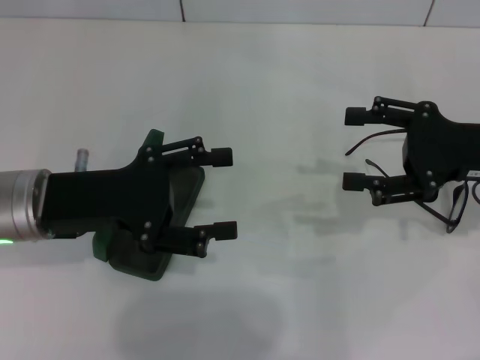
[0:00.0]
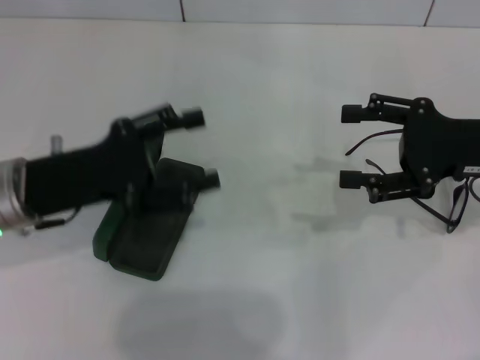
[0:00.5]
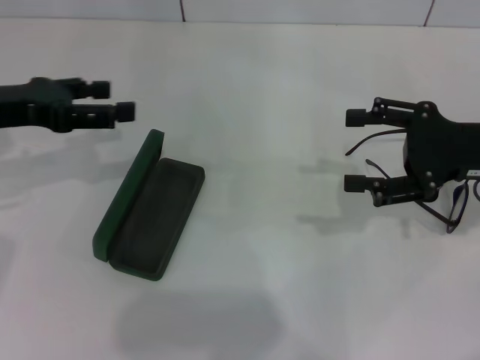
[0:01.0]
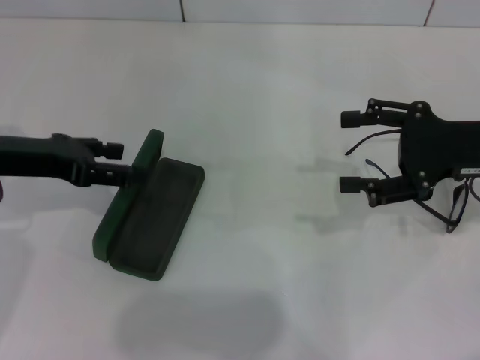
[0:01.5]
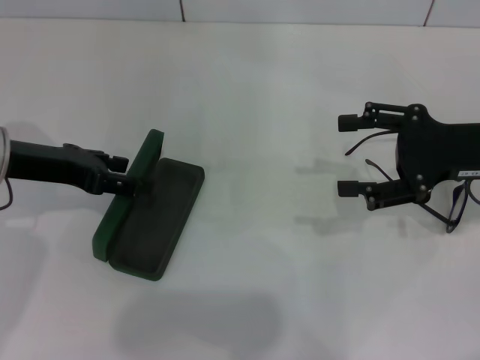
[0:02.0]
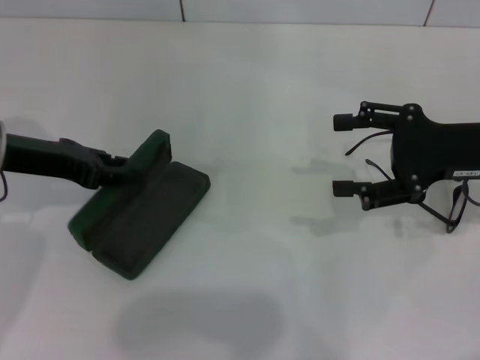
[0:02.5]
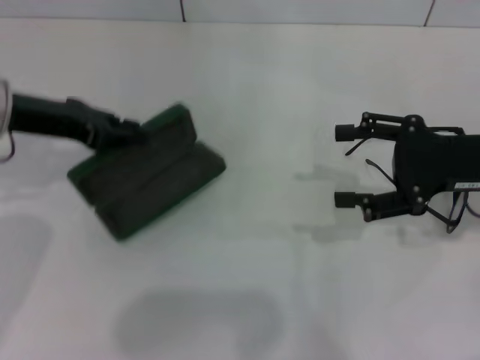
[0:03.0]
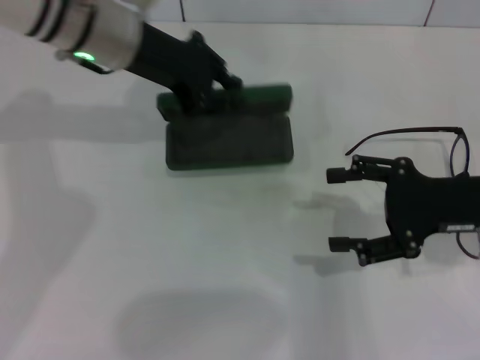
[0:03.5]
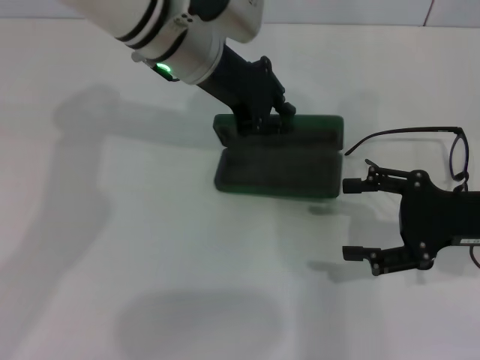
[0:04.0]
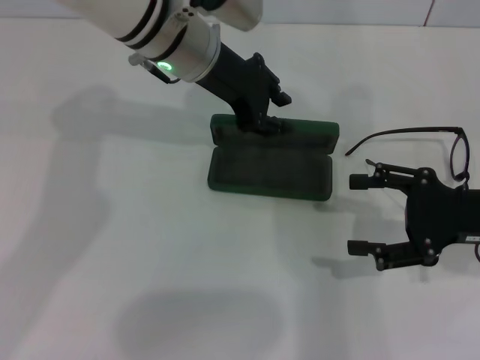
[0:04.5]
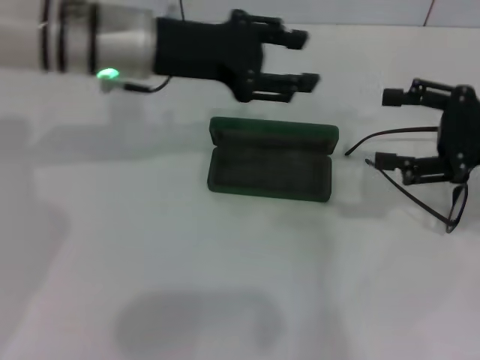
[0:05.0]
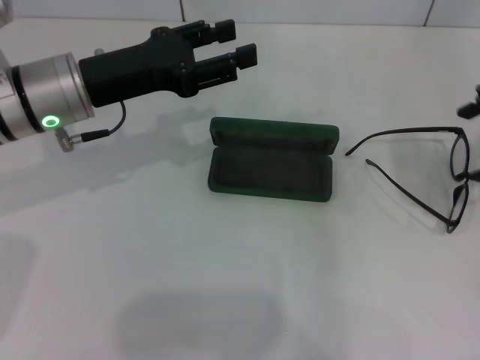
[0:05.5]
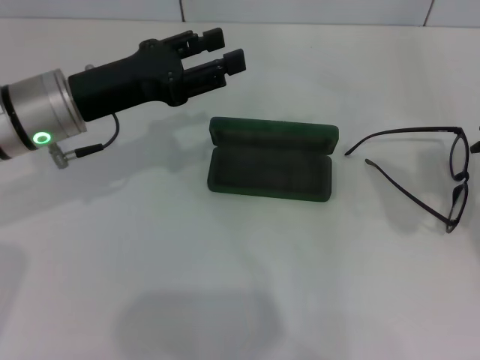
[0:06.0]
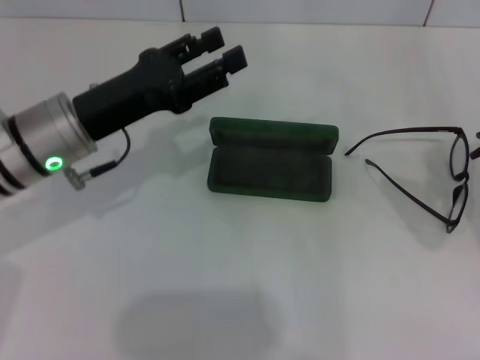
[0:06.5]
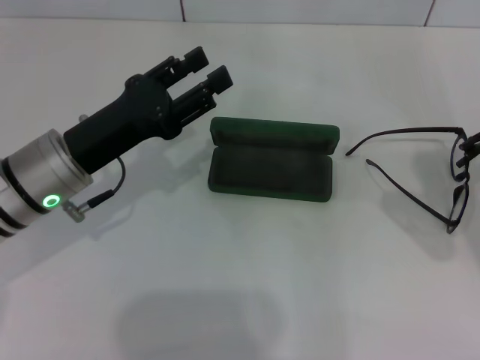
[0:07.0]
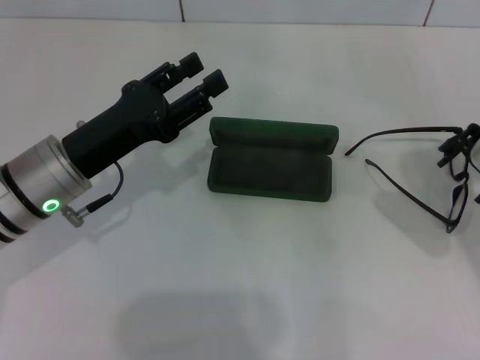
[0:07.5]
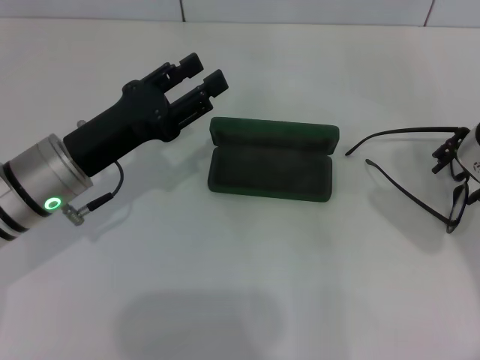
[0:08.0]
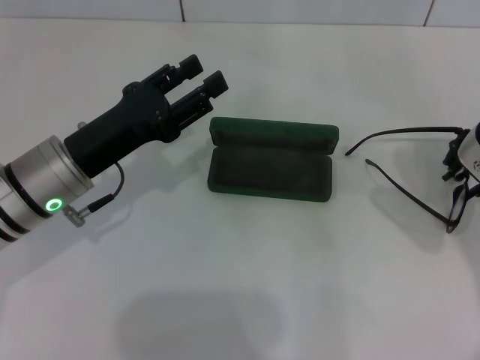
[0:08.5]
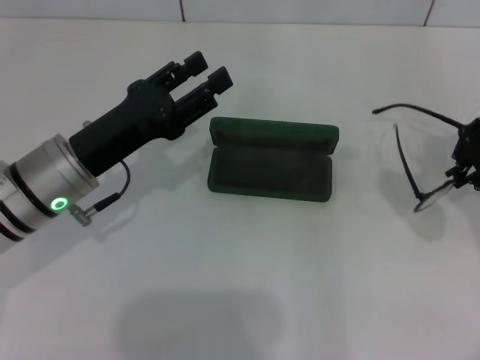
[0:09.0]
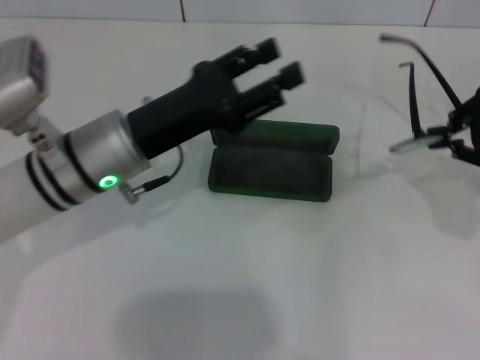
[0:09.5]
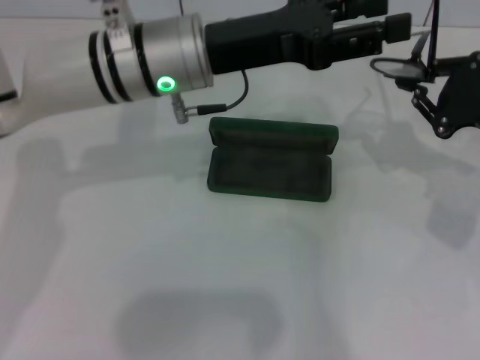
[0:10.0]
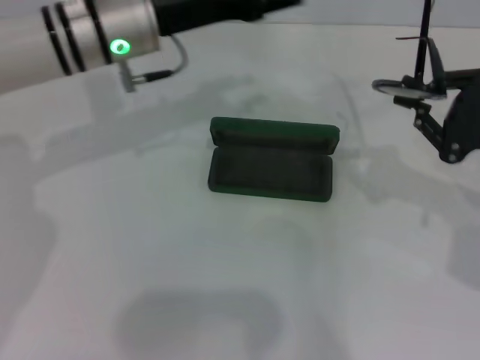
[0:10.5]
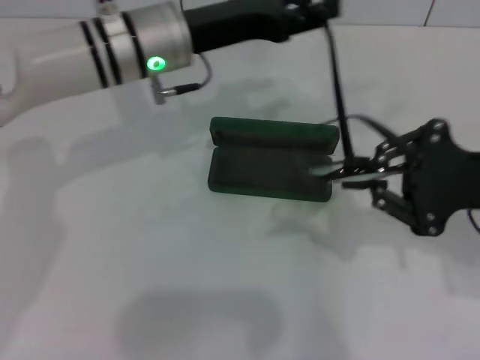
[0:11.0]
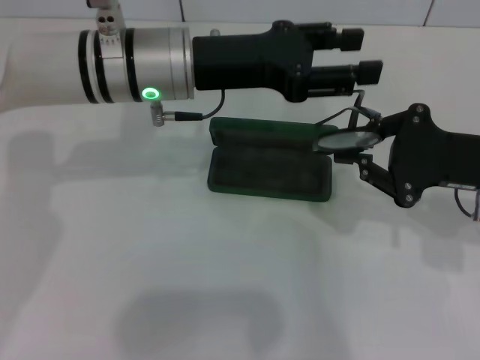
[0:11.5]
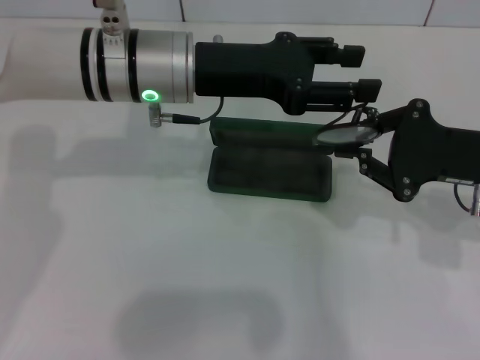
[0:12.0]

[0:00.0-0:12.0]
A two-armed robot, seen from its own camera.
Step, 0:00.0 to 0:02.5: Grab the glasses case with your left hand.
Step, 0:03.0 to 0:04.5: Place the glasses case in the center of the table with your left hand.
Step, 0:05.0 to 0:08.5: Grab the eyeglass frame with your right hand.
0:00.0 to 0:02.0: The left gripper travels forward by roughly 5 cm.
0:02.0 to 0:04.0: The right gripper changes place by some 5 cm, while the left gripper moves to the right and forward, approximately 20 cm, and closes up.
0:04.0 to 0:06.0: The left gripper moves to the left and backward, roughly 15 cm, and opens. Meanwhile the right gripper travels upward by approximately 15 cm.
0:06.0 to 0:08.0: The right gripper goes roughly 5 cm downward; the left gripper shifts by some 5 cm.
0:08.0 to 0:10.0: The right gripper is displaced to the right and downward by approximately 10 cm, and closes up. The left gripper goes some 15 cm to the right, upward and forward.
0:10.0 to 0:12.0: The right gripper changes place by about 5 cm.

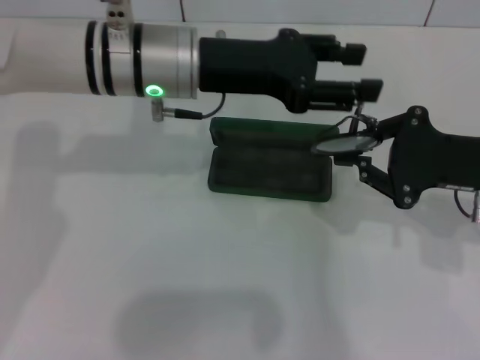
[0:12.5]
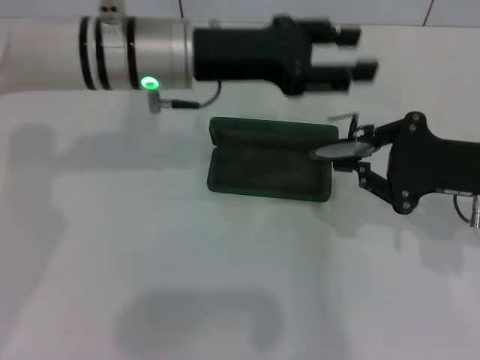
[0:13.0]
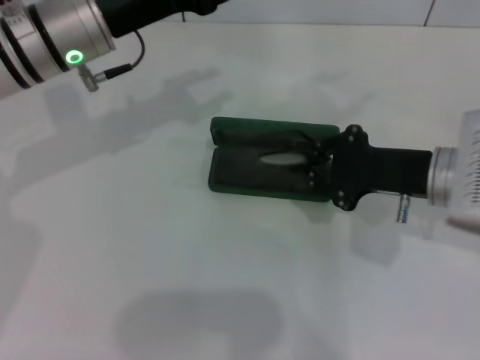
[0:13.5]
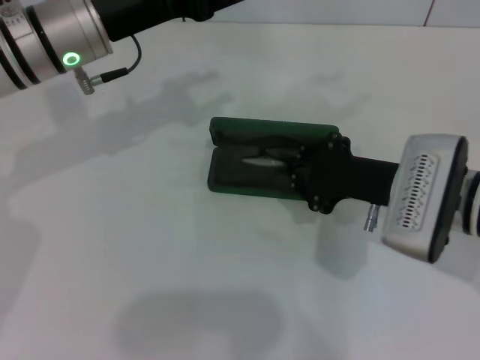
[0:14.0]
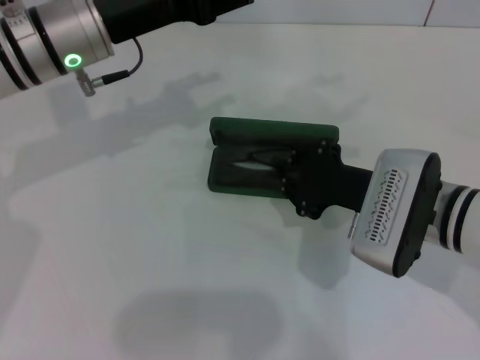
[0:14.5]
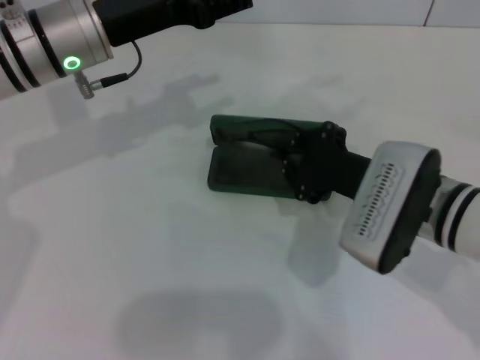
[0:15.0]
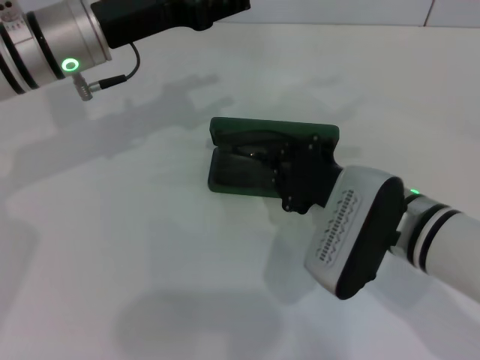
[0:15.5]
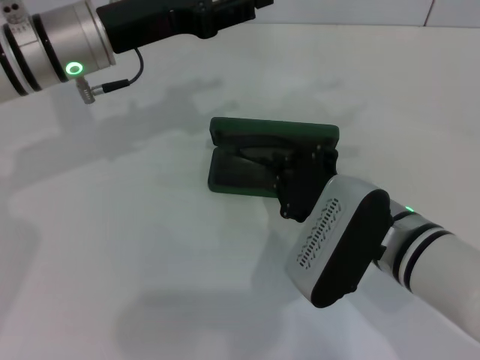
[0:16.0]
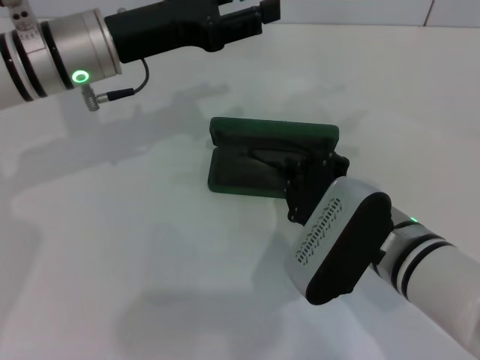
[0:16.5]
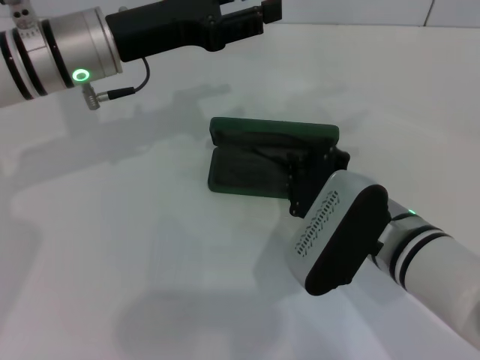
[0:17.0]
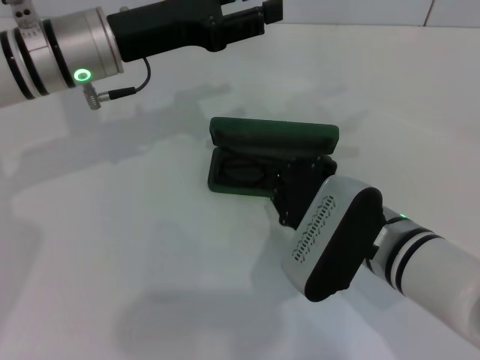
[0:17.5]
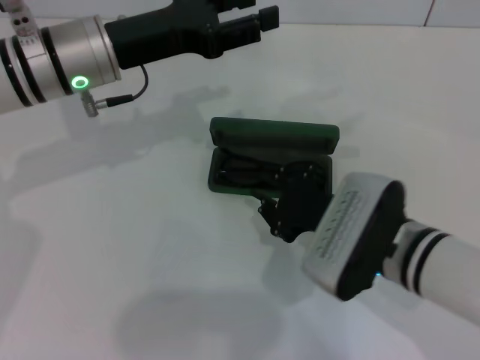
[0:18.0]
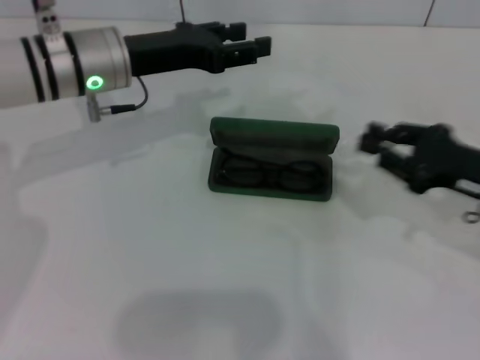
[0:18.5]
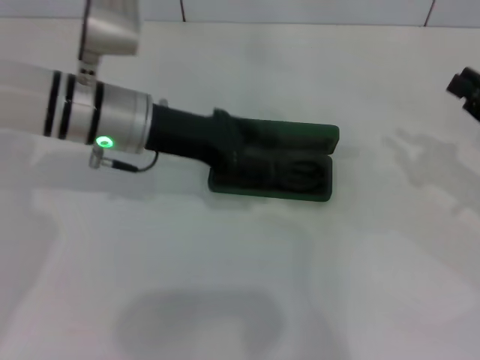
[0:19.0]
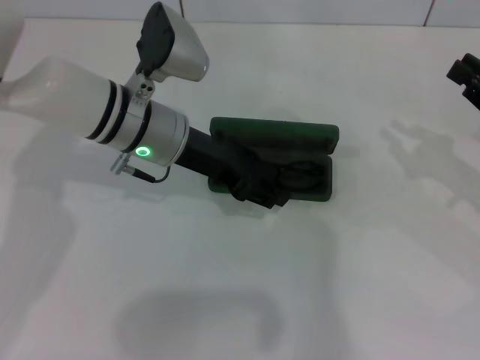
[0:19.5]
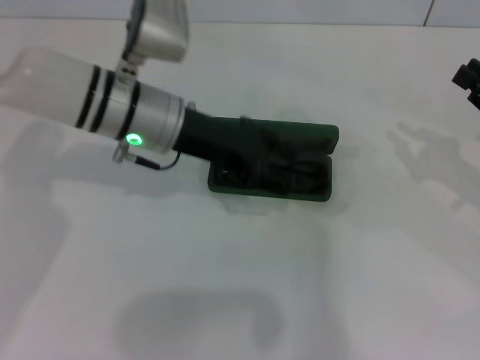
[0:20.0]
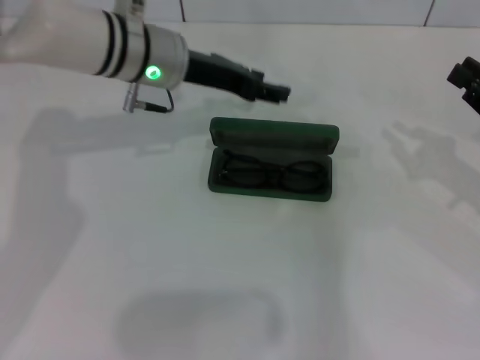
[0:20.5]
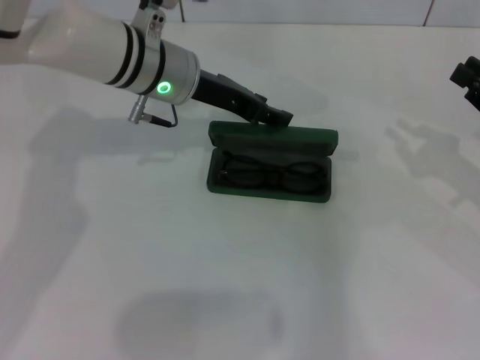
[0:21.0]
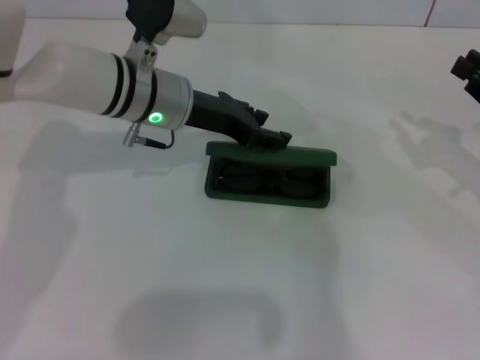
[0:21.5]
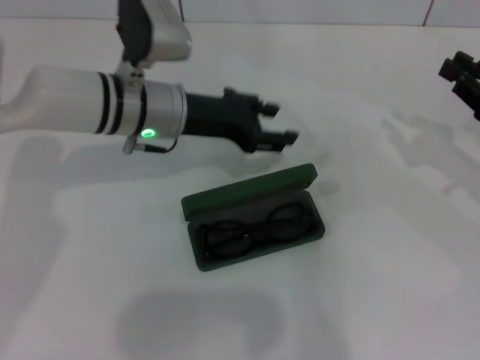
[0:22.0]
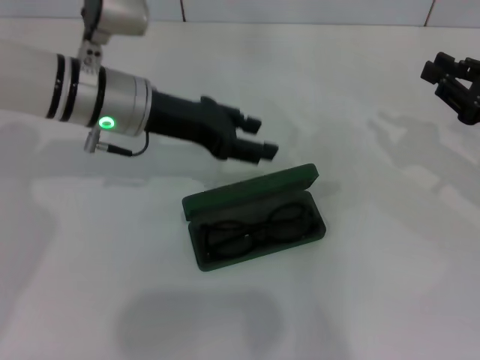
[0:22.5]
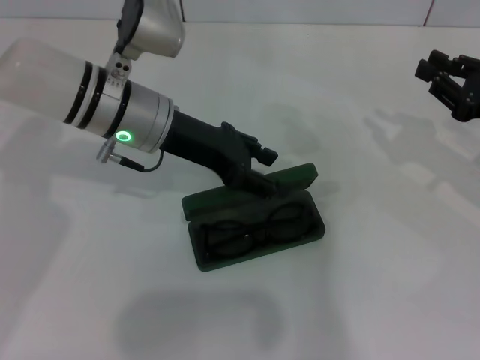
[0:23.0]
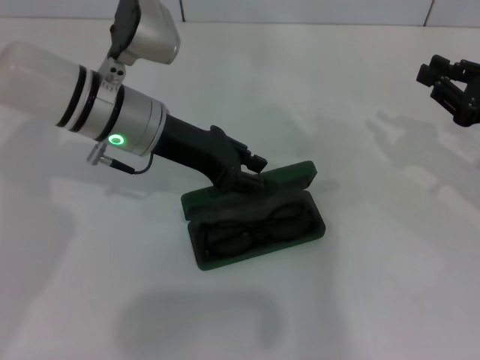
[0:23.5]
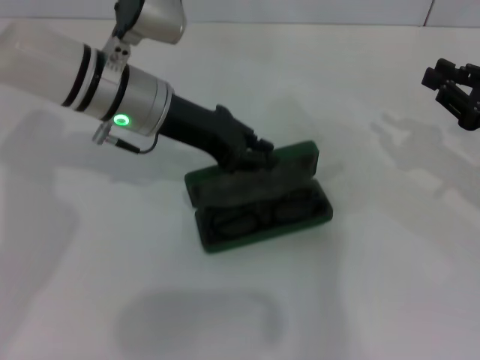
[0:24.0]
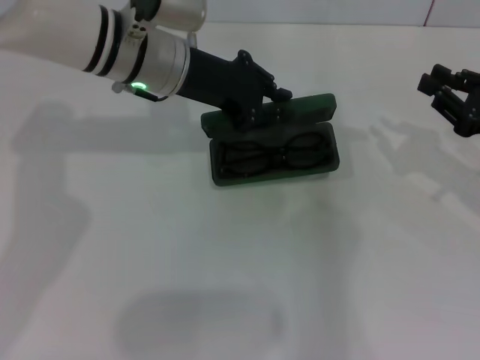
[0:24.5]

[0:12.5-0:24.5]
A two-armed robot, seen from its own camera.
Step, 0:13.0 to 0:17.5: Put the glasses into the case with your right hand.
0:12.5 to 0:14.5: Both grippers move to the left, roughly 10 cm.
0:14.5 to 0:16.5: The right gripper changes place by roughly 5 cm.
0:16.5 to 0:18.5: The right gripper goes some 15 cm to the right.
0:18.5 to 0:20.5: The two grippers go roughly 5 cm to the right.
0:20.5 to 0:22.5: The left gripper moves about 5 cm.
0:22.5 to 0:24.5: The left gripper shifts by some 5 cm, and closes its fingers.

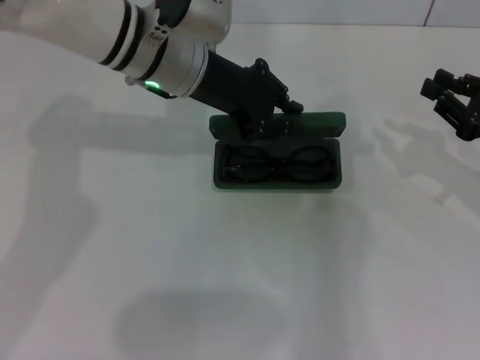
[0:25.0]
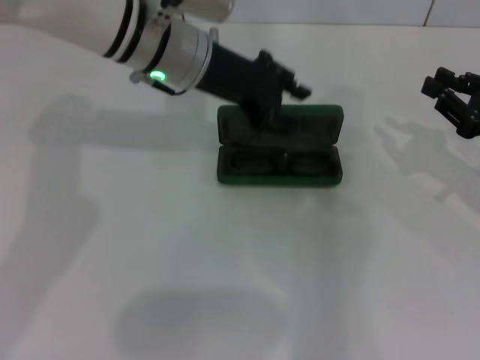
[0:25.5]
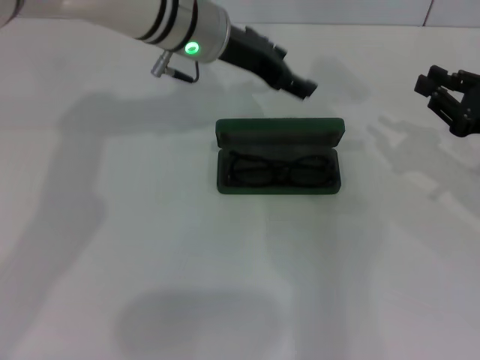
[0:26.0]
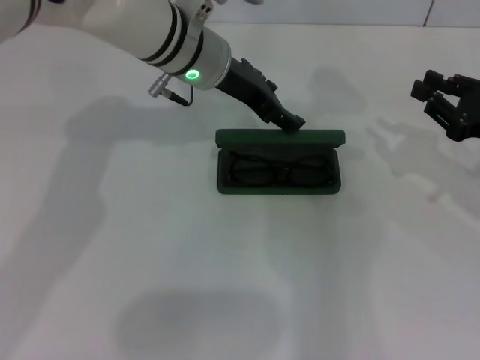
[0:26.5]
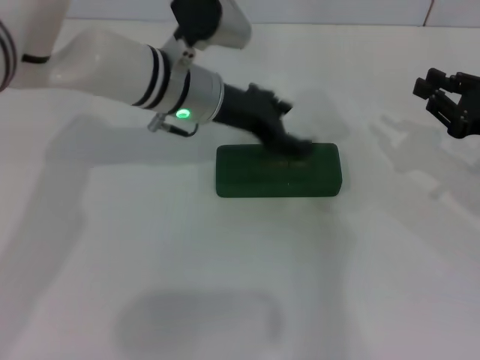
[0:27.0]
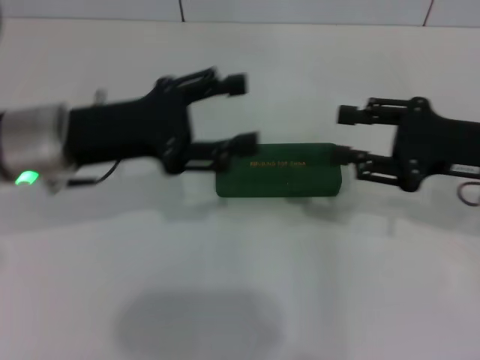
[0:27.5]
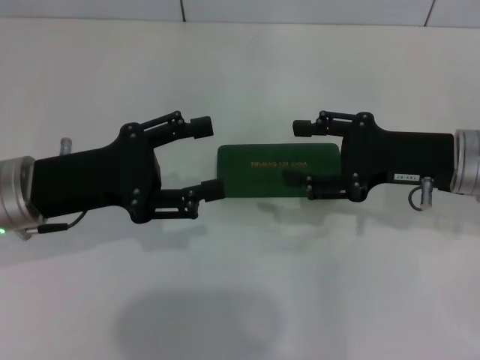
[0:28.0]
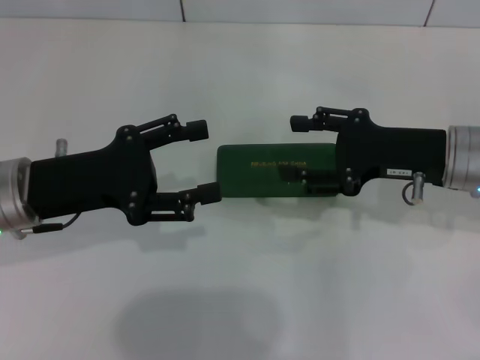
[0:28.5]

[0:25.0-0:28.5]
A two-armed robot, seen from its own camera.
0:25.0 to 0:27.0: The left gripper opens up.
0:27.0 to 0:28.5: The right gripper shifts roughly 10 cm to the left, and opens up. The left gripper travels to the left and backward by some 20 cm.
